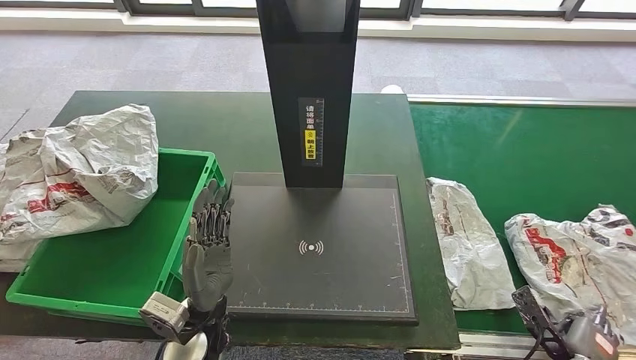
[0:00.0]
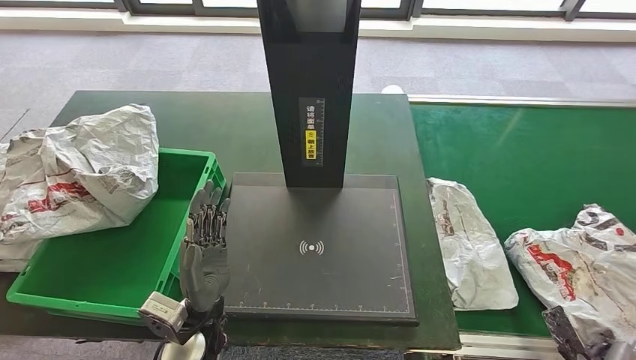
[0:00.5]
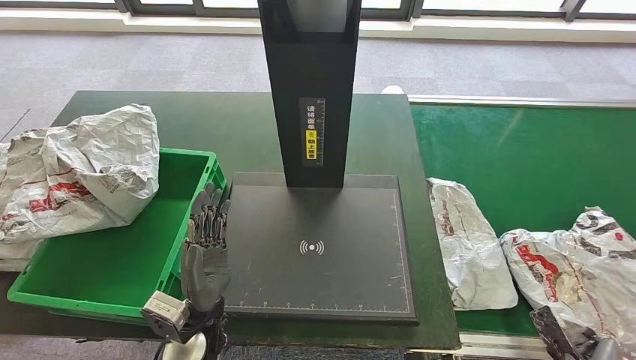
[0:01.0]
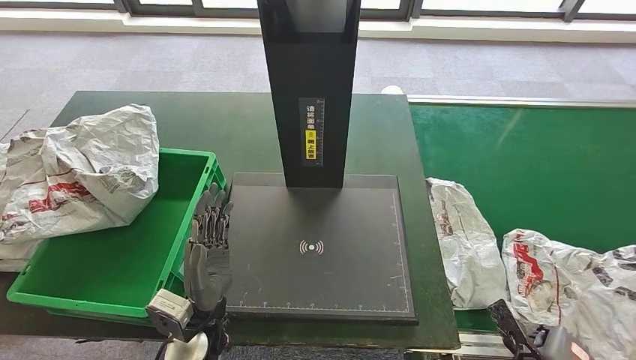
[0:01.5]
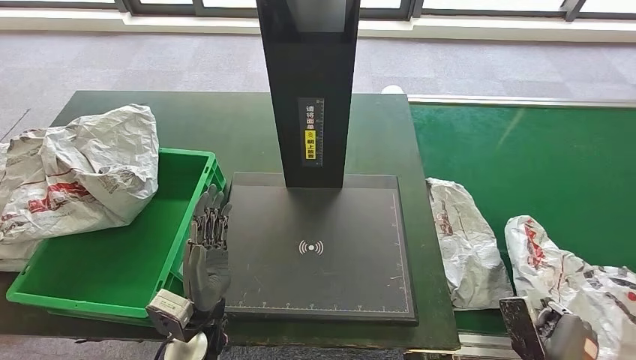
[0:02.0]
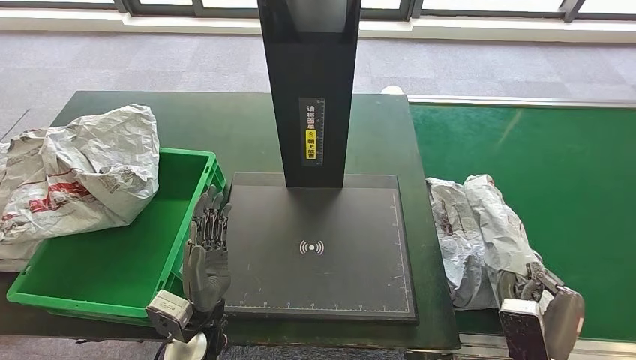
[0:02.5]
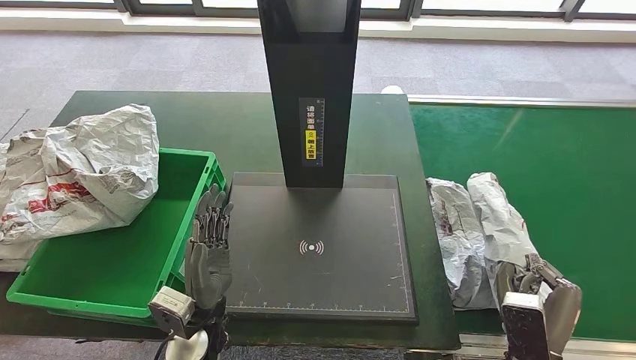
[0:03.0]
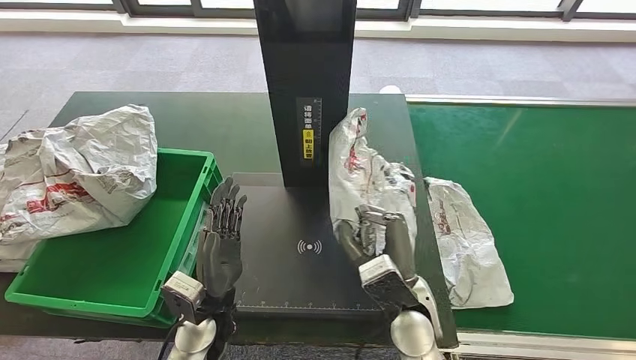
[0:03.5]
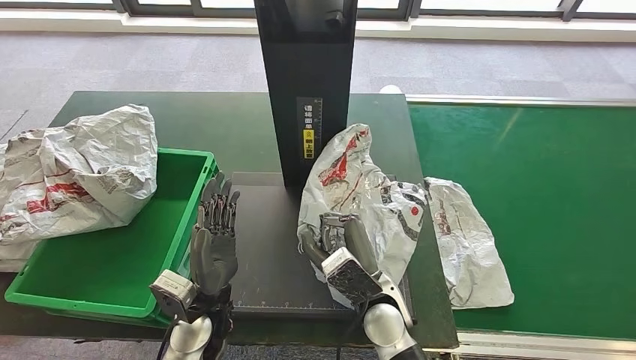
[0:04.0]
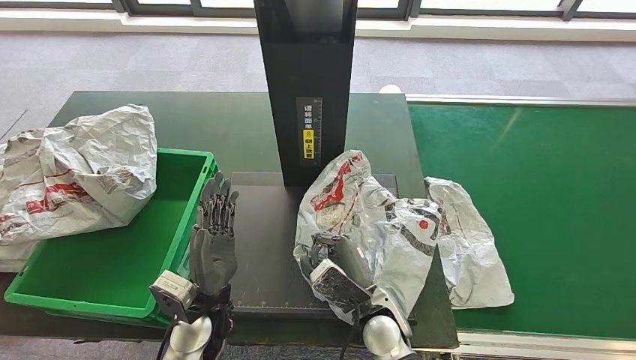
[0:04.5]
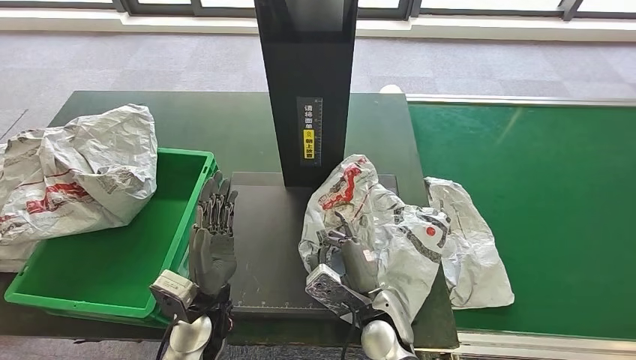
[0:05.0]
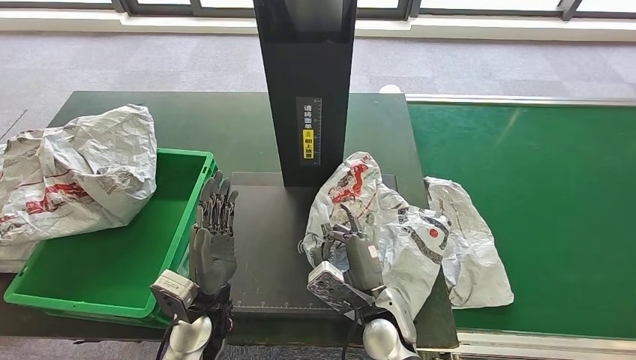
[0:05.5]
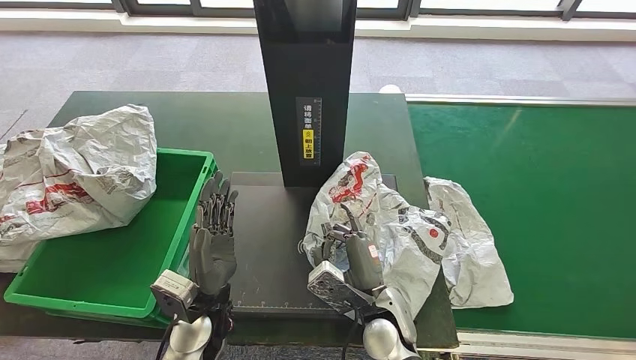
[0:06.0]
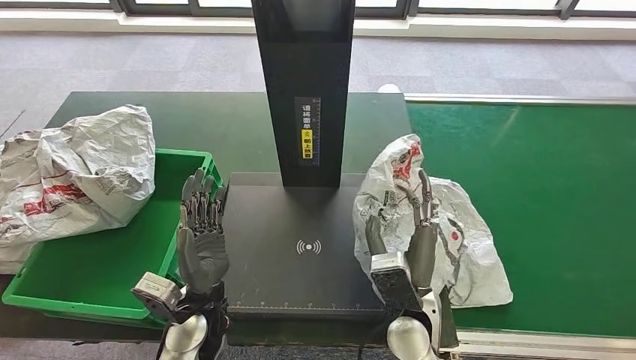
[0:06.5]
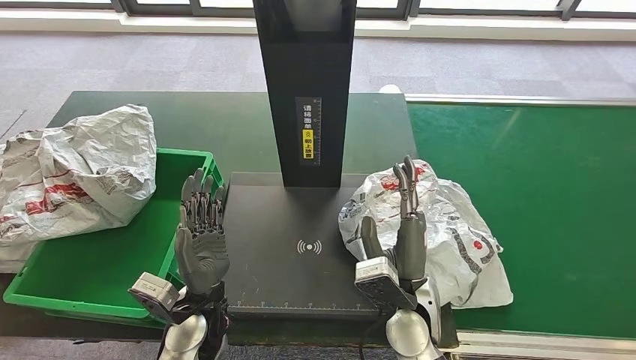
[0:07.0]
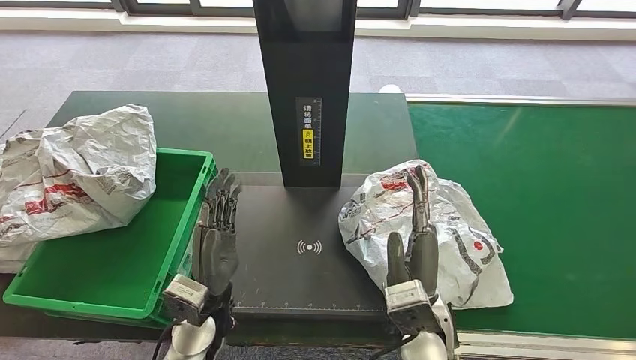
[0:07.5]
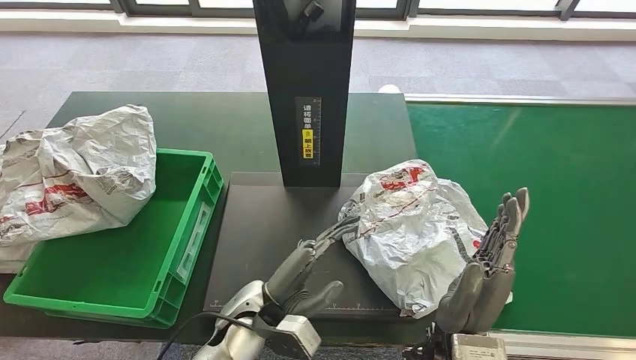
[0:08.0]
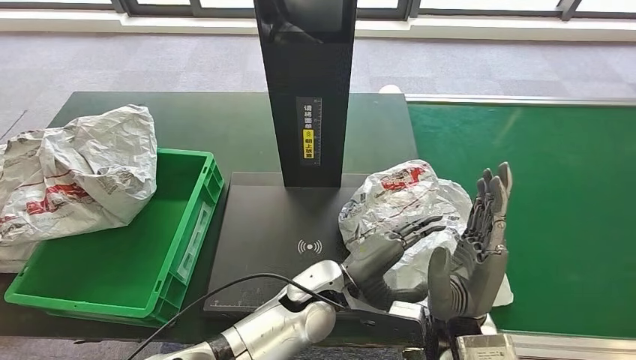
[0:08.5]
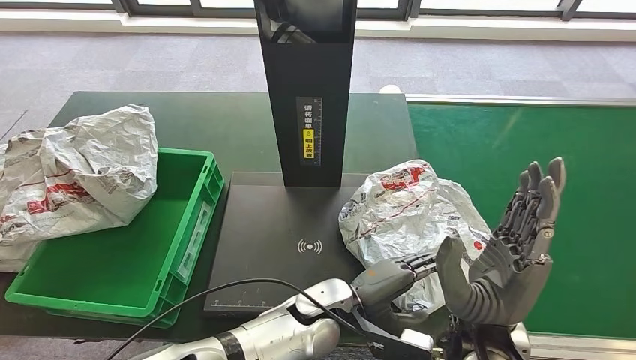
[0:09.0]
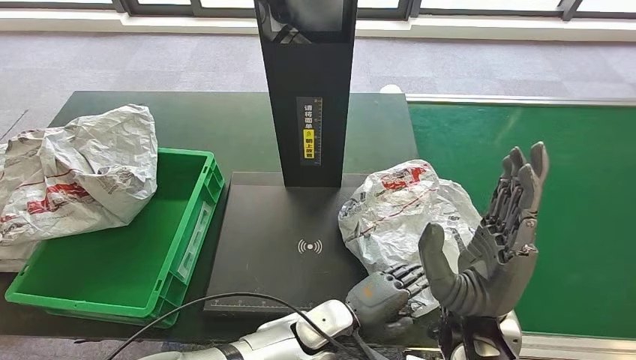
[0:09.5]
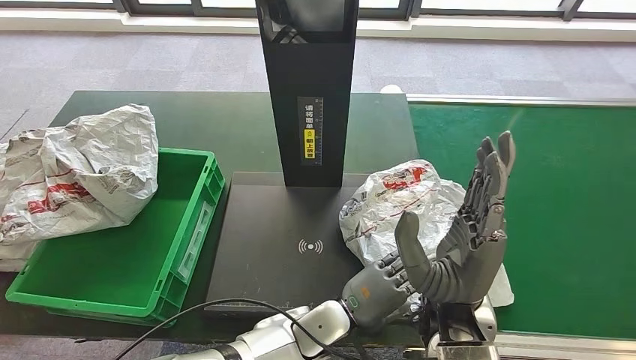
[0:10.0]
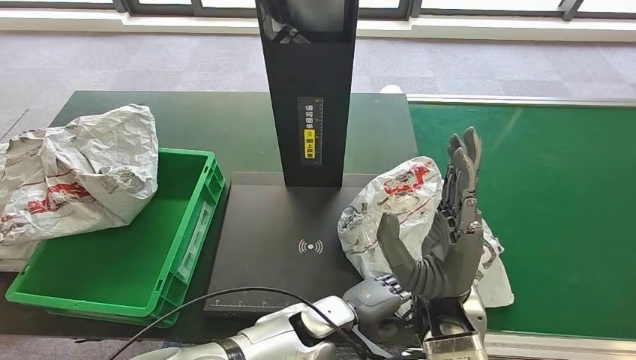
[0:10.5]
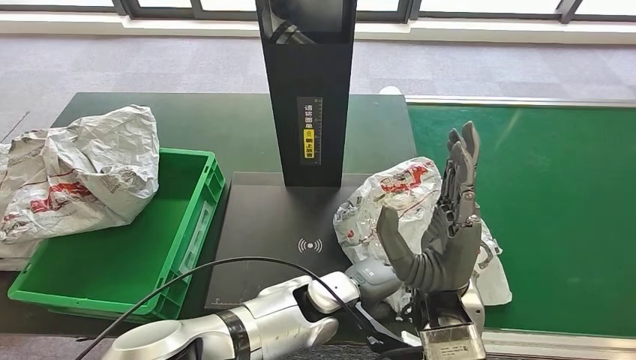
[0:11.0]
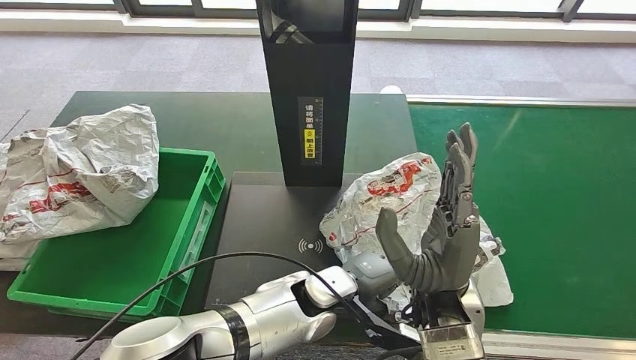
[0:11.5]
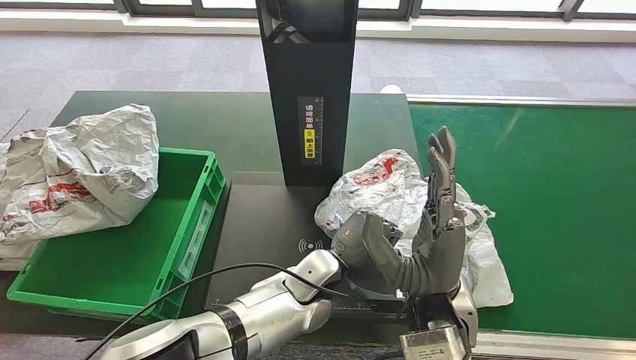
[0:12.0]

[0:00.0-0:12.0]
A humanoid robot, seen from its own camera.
Step, 0:02.0 to 0:03.5: Pick up the parcel from the conveyor belt.
0:00.0 to 0:02.0: The right hand goes about 5 cm to the left.
0:04.0 to 0:06.0: The hands move only a little.
0:06.0 to 0:08.0: The left hand moves to the right, approximately 5 cm, while the right hand heads upward, to the right and backward, covering some 15 cm.
0:08.0 to 0:10.0: The left hand is displaced to the right by some 10 cm; the right hand moves upward, some 5 cm.
0:10.0 to 0:12.0: The left hand moves forward, some 5 cm.

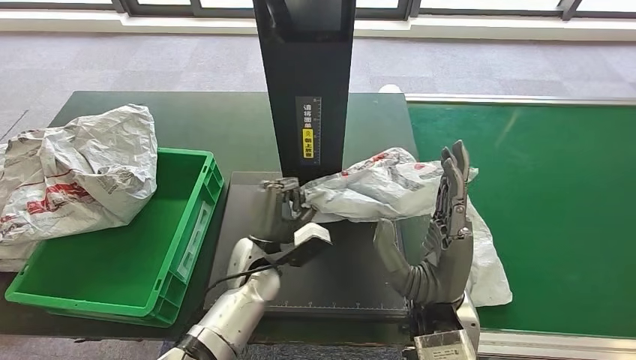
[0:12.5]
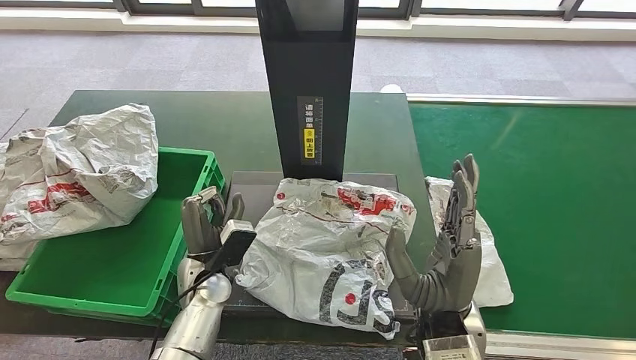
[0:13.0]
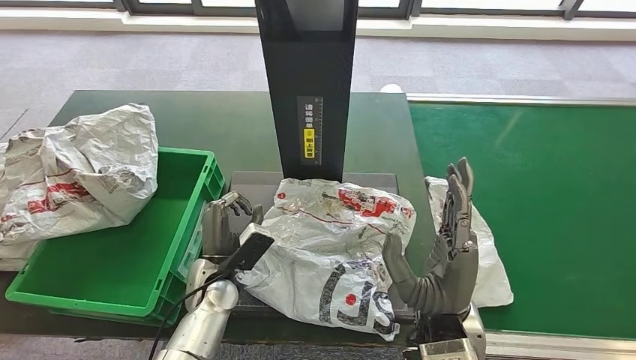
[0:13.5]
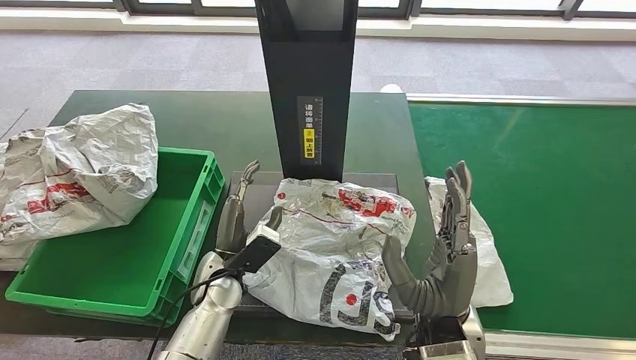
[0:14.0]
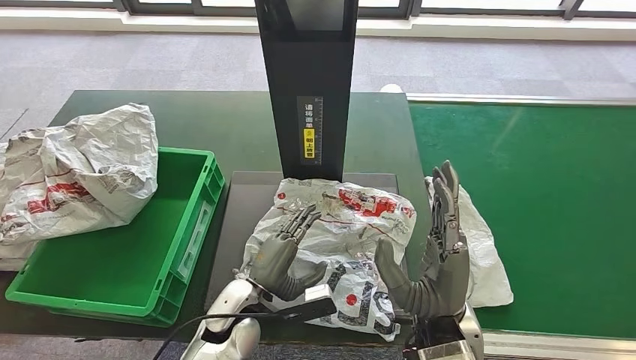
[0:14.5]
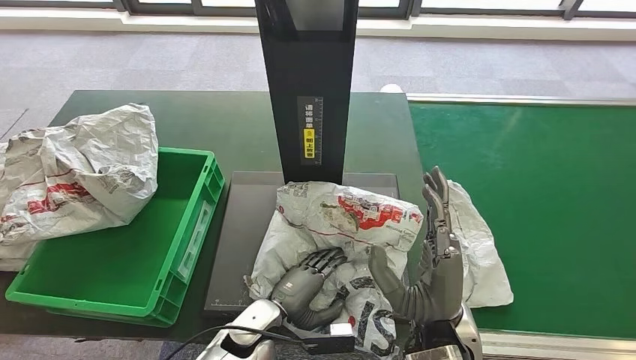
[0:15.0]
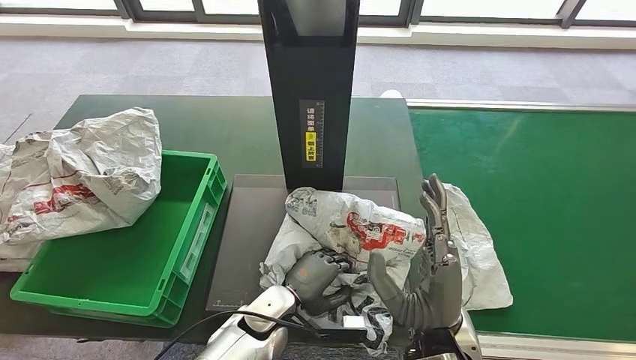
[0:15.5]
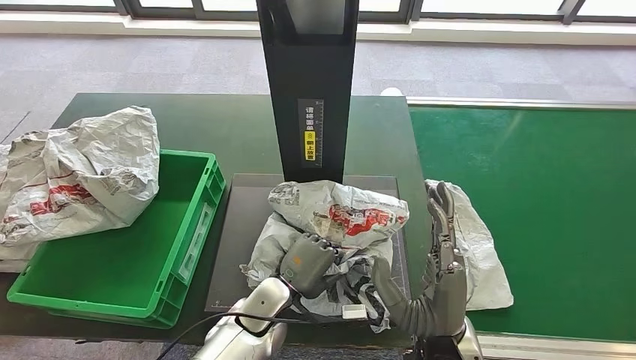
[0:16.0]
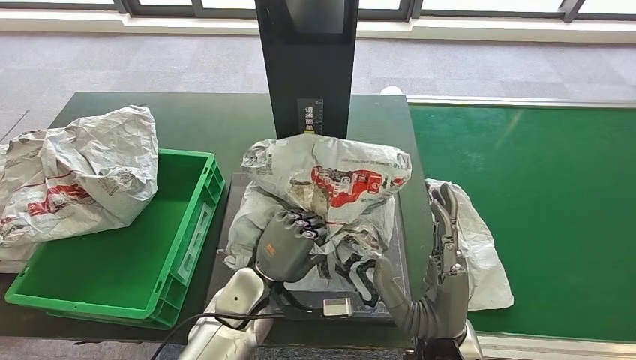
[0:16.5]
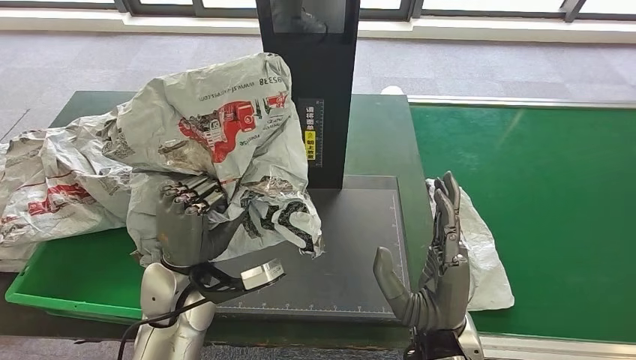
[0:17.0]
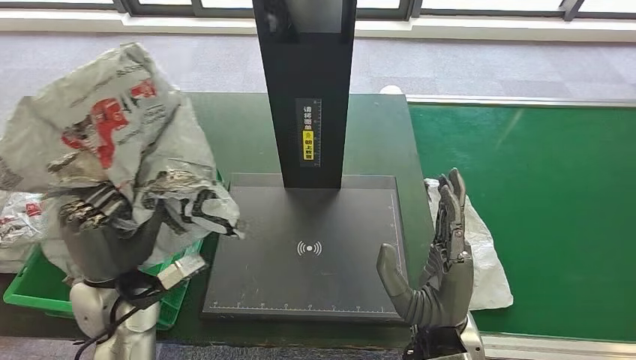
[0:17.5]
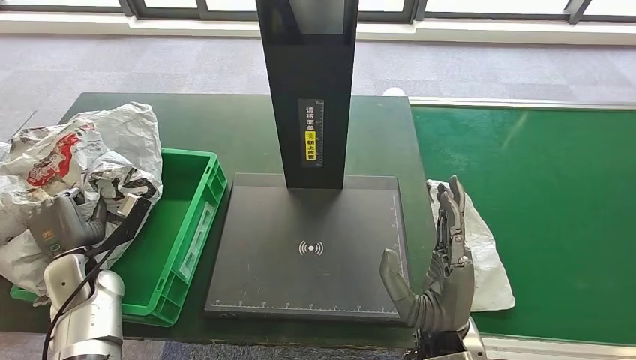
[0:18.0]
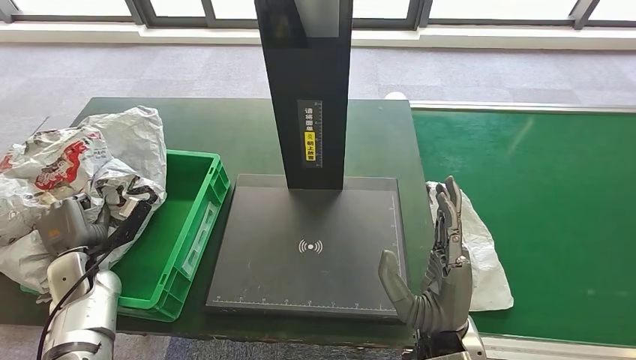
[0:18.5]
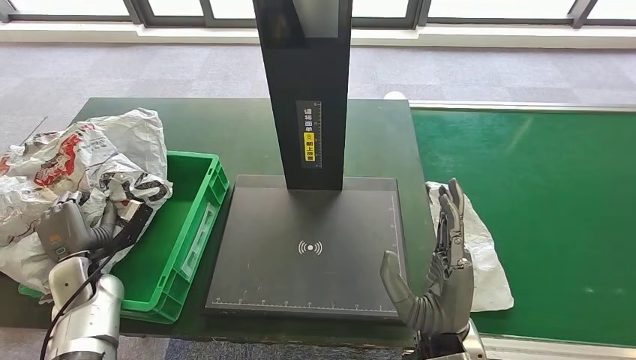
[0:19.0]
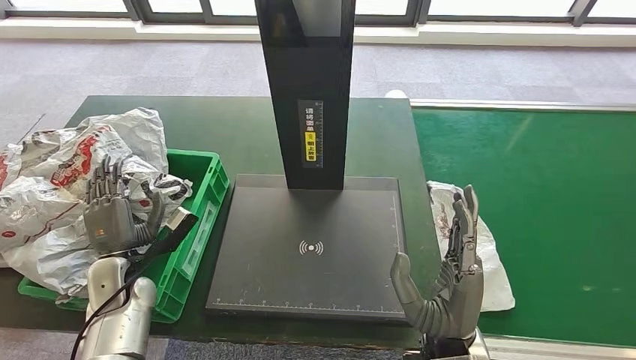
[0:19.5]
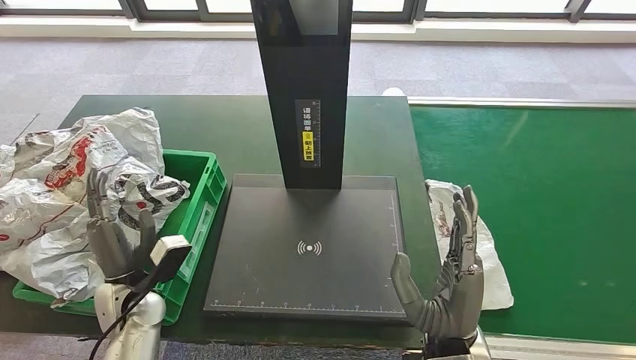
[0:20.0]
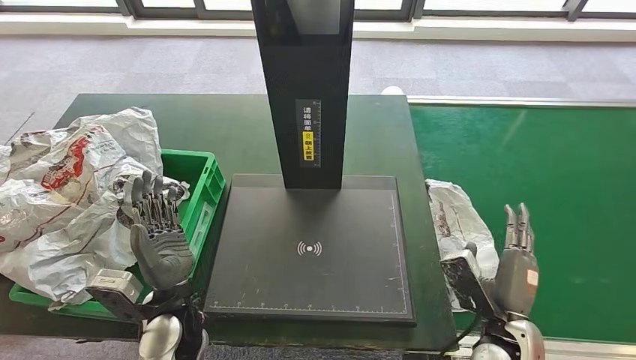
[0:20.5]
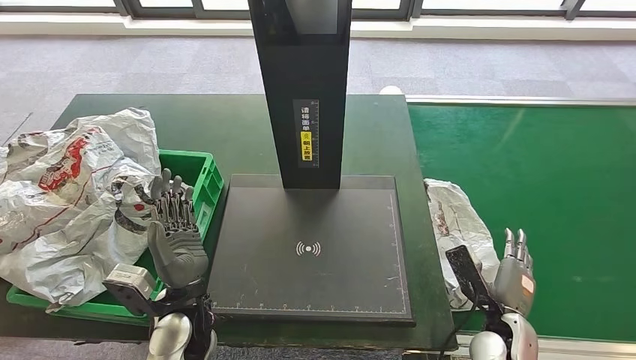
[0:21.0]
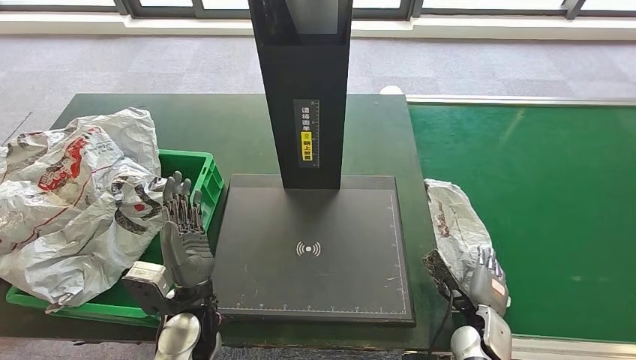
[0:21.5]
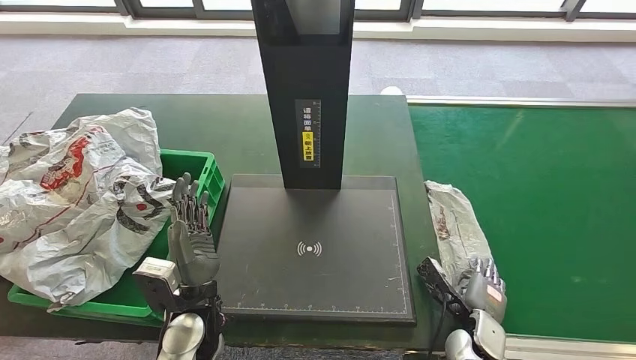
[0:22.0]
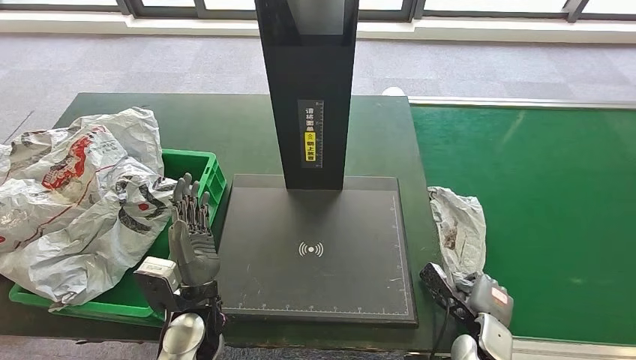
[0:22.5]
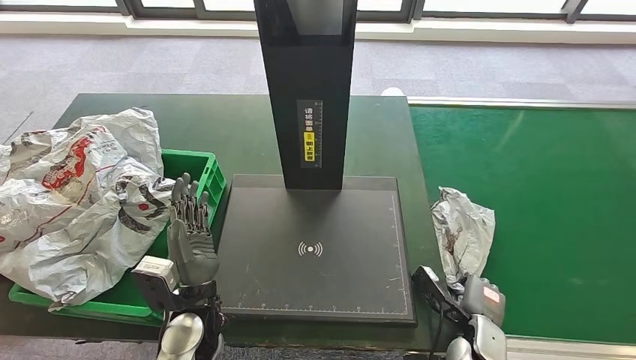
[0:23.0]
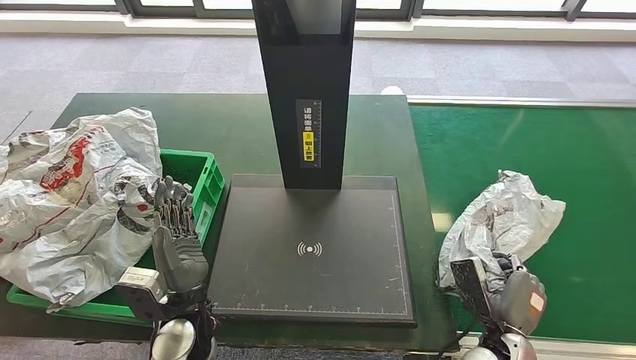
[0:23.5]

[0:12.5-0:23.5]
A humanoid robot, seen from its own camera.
Step, 0:12.5 to 0:15.5: Place the parcel onto the inbound machine.
Step, 0:16.0 to 0:17.5: Pick up the parcel from the inbound machine.
Step, 0:18.0 to 0:20.5: Place the parcel into the delivery box.
0:12.5 to 0:14.5: The left hand shifts about 5 cm backward, and goes to the left and returns, about 10 cm each way.
0:21.5 to 0:23.5: The right hand moves about 5 cm.
